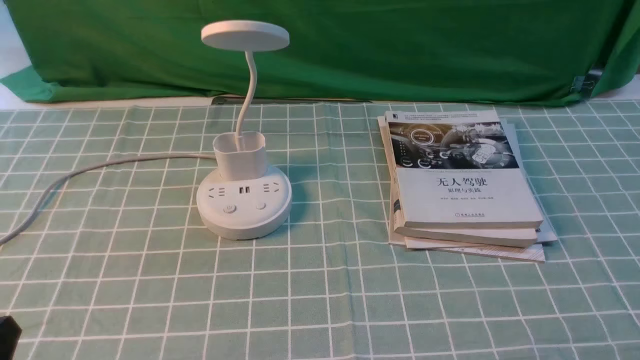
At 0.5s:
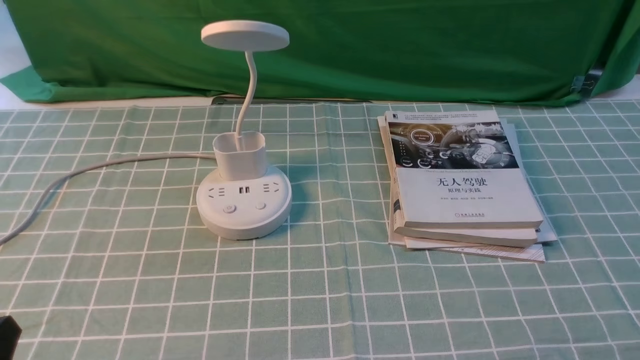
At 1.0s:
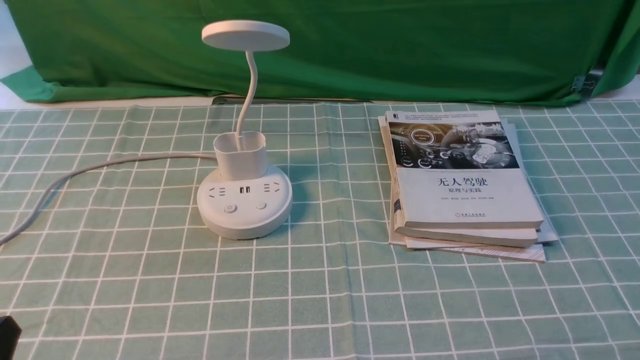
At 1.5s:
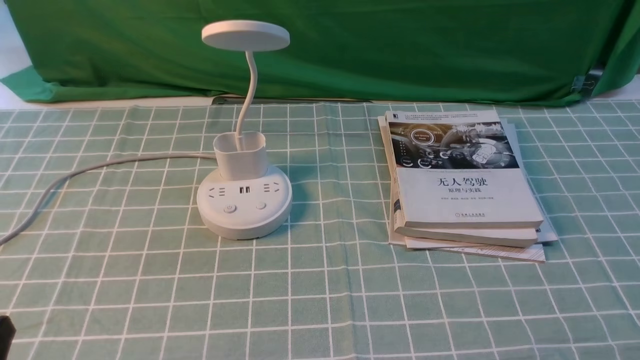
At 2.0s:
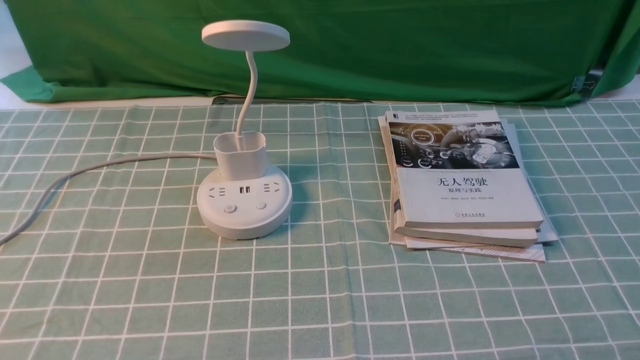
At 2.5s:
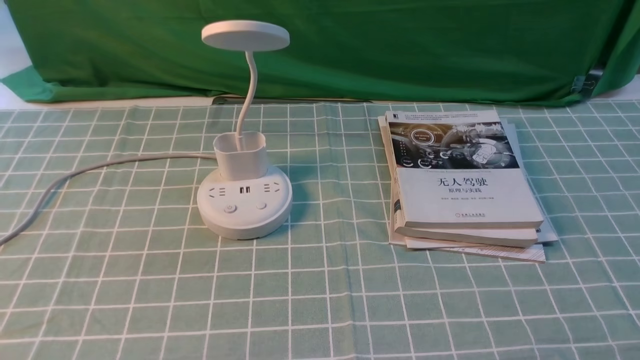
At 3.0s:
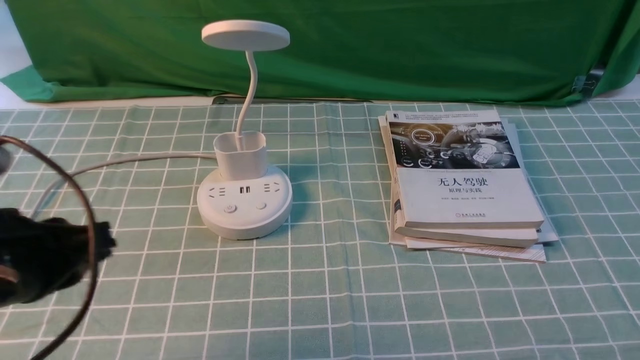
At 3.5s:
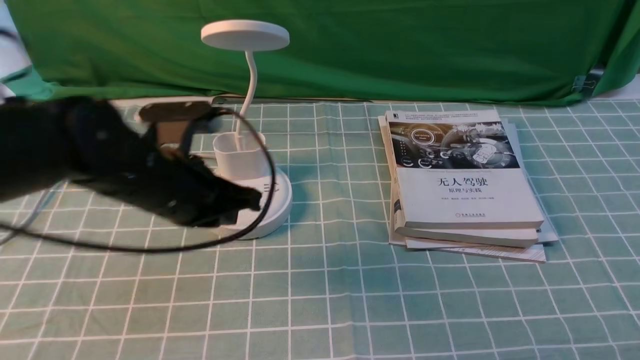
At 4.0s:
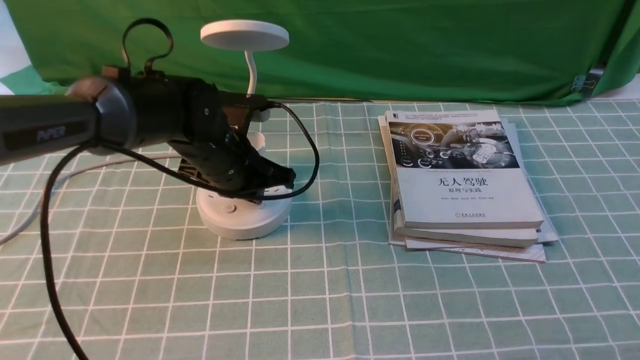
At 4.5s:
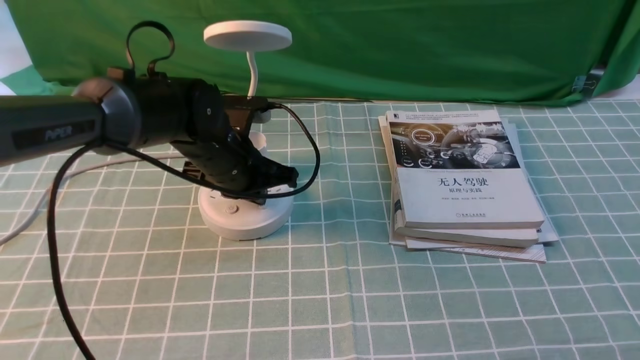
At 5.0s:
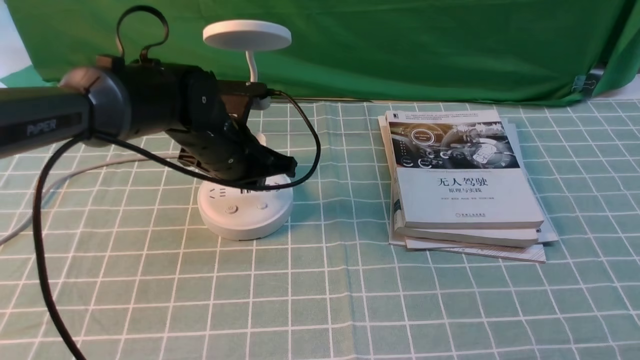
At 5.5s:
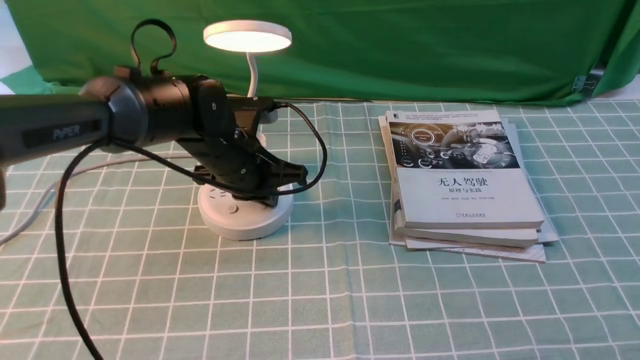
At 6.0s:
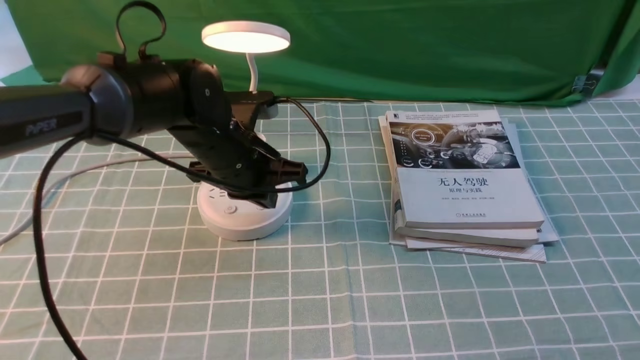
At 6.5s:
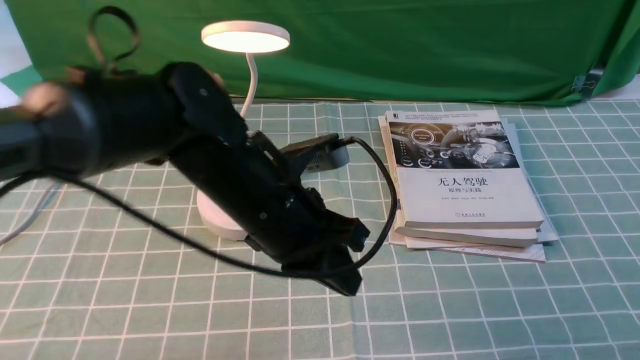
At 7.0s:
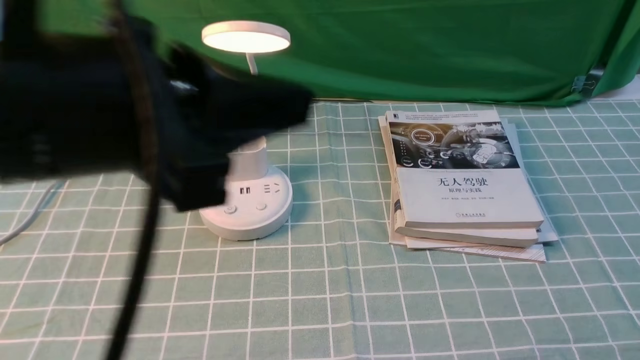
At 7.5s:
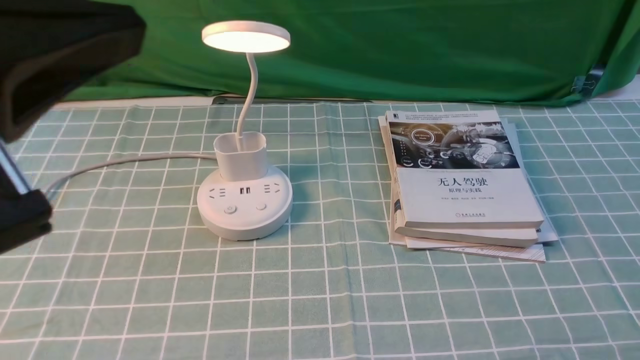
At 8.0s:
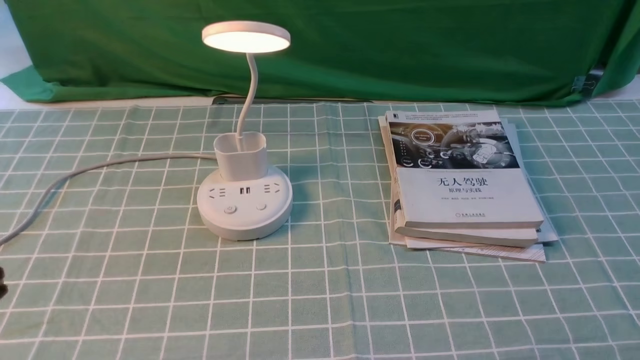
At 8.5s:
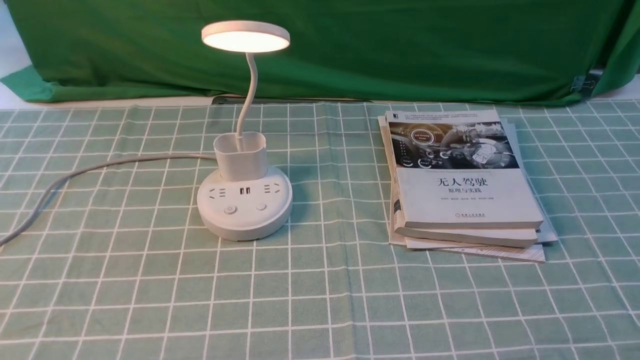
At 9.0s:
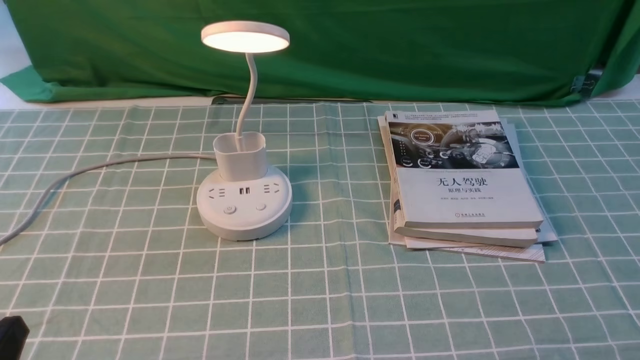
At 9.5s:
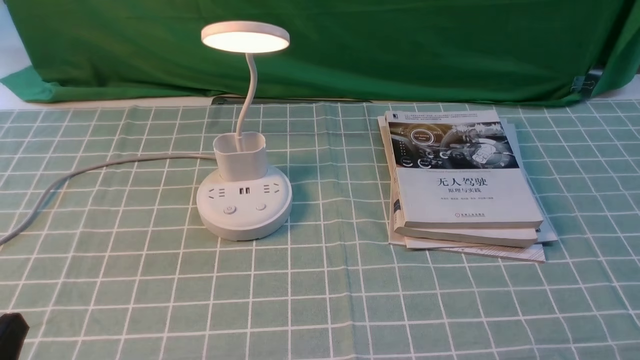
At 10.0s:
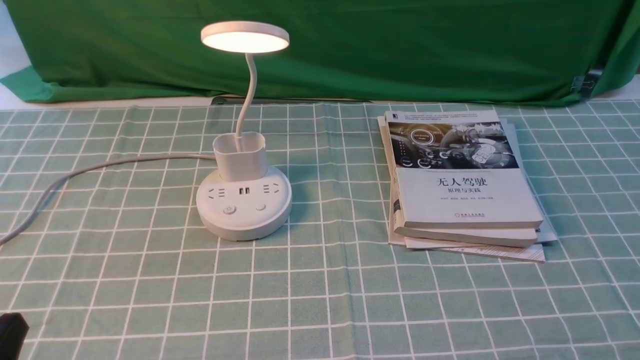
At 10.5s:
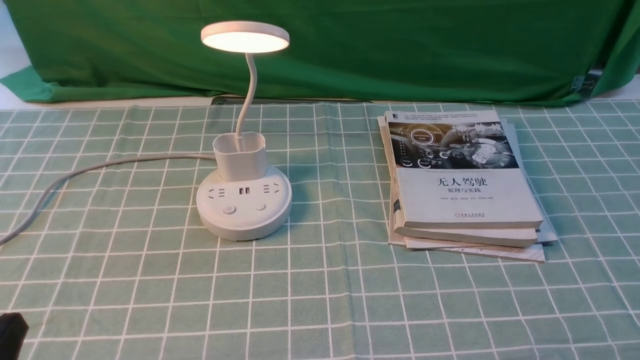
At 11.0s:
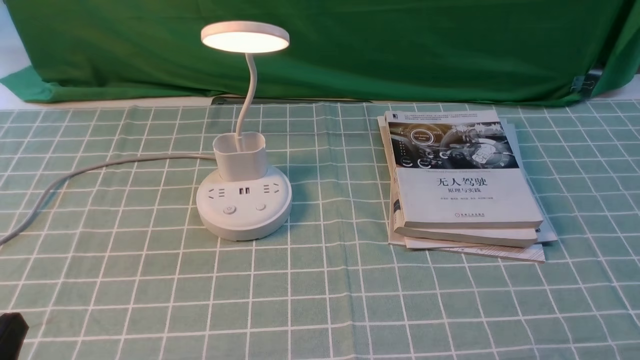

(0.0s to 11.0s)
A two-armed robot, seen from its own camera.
Step, 0.0s - 5.5s: use the left arm to press the button switch on the lamp holder.
2.0s - 3.5s: The left gripper moves forward and to the right, approximately 30 cm.
3.5s - 5.5s: The left gripper heads forward and downward, covering roughly 10 cm.
5.5s - 7.5s: The left gripper shifts about 40 cm backward and upward.
7.5s - 9.0s: The left gripper travels downward by about 25 cm, and opens.
9.0s - 11.0s: The two grippers keep their place.
